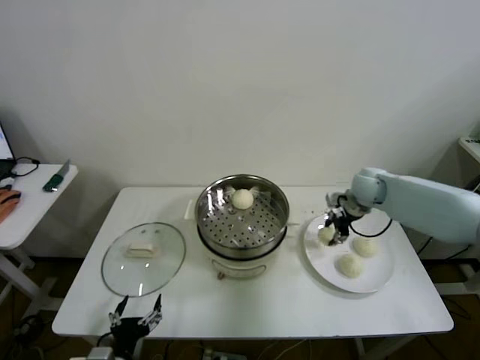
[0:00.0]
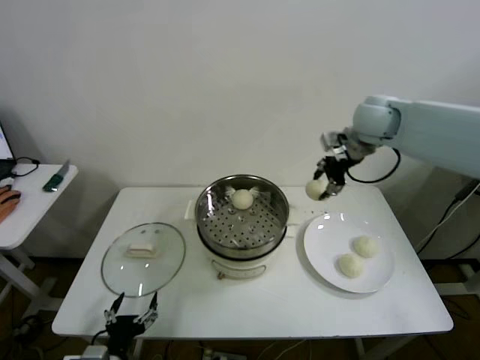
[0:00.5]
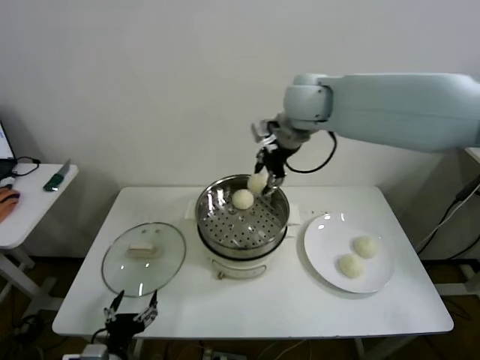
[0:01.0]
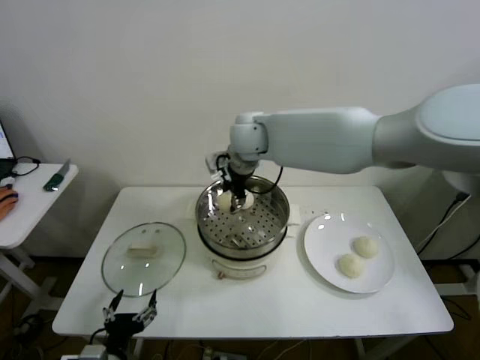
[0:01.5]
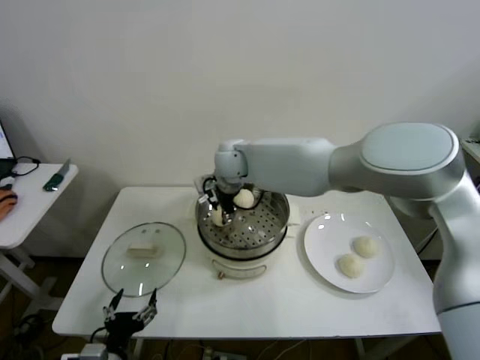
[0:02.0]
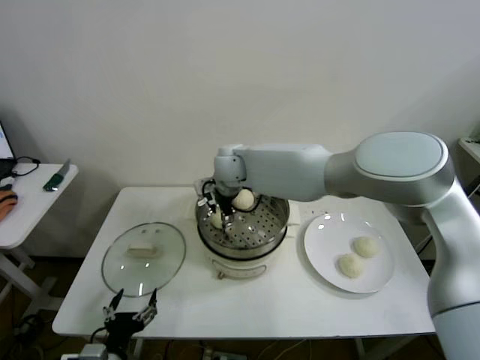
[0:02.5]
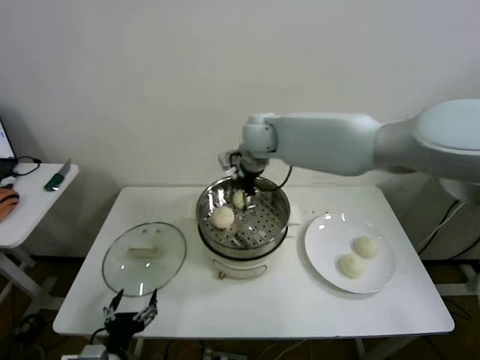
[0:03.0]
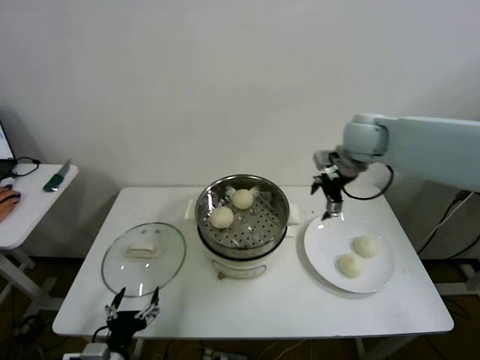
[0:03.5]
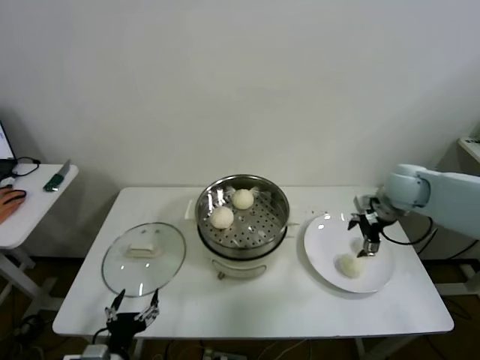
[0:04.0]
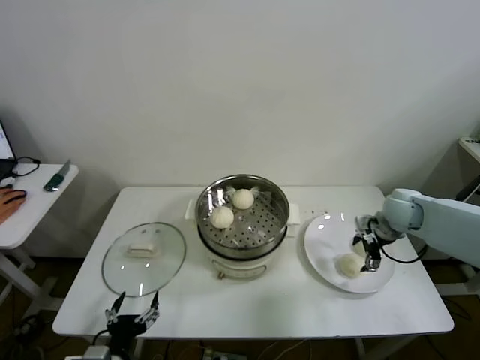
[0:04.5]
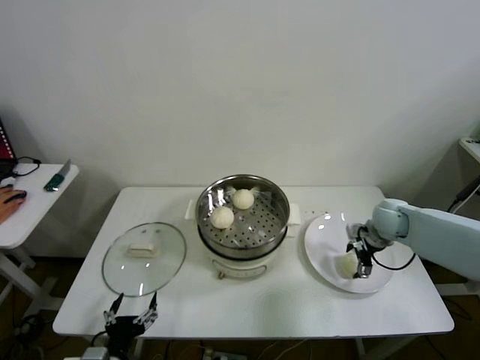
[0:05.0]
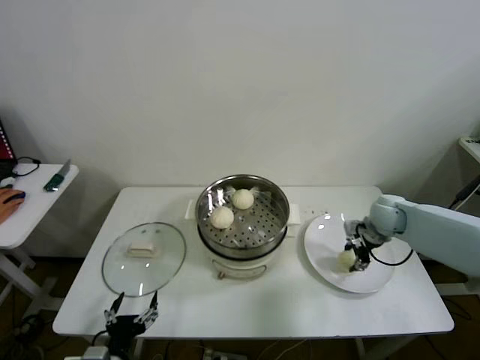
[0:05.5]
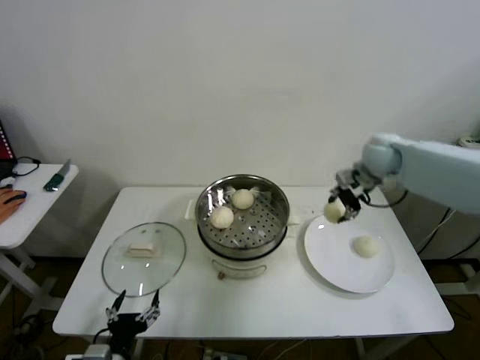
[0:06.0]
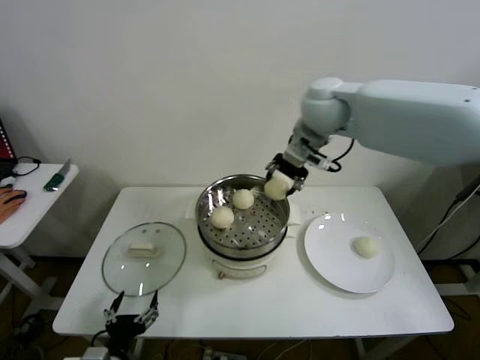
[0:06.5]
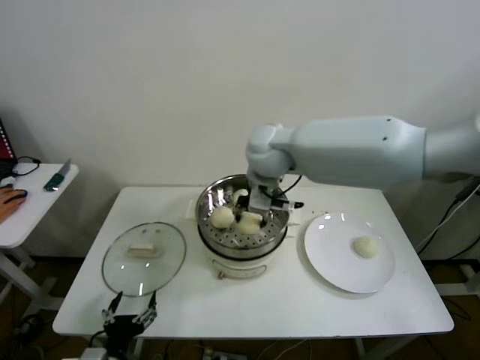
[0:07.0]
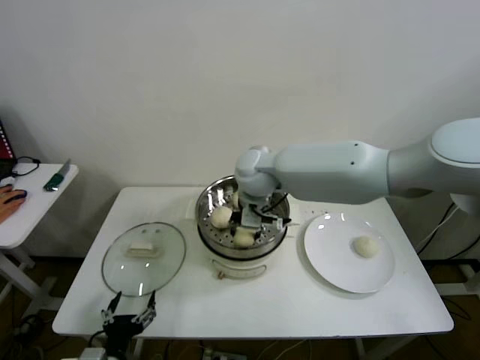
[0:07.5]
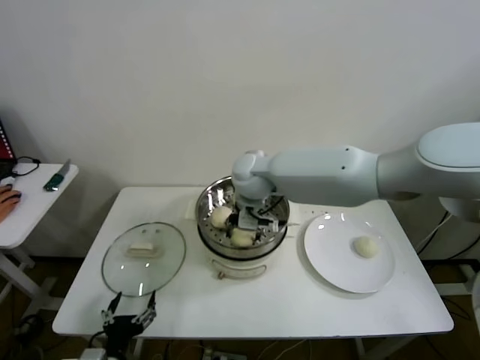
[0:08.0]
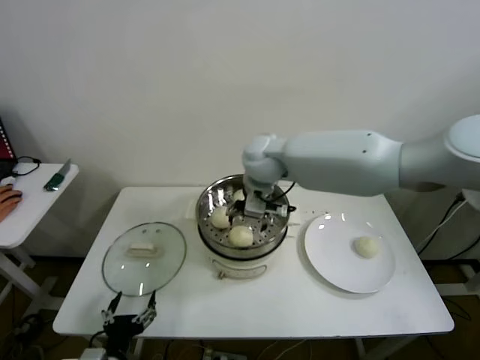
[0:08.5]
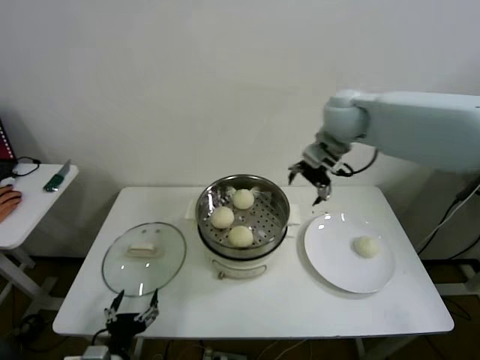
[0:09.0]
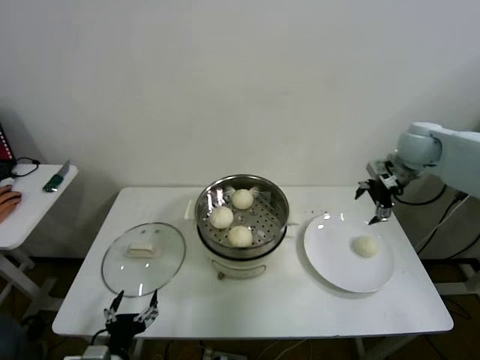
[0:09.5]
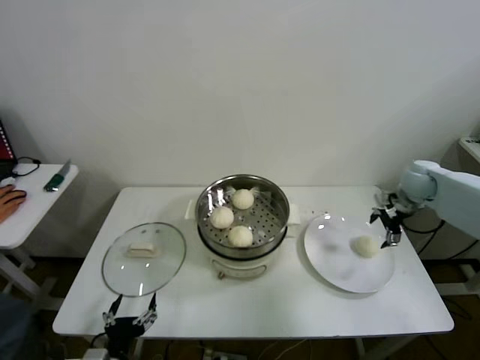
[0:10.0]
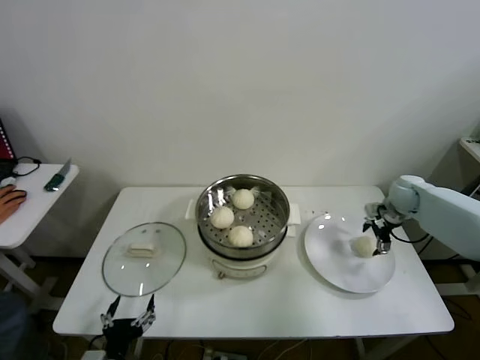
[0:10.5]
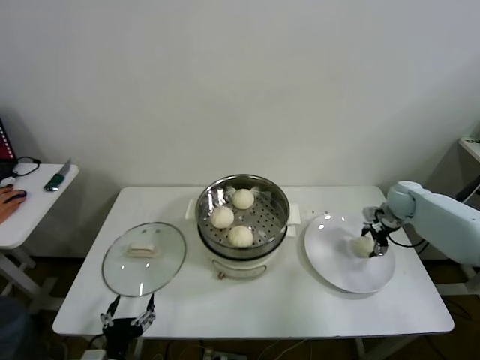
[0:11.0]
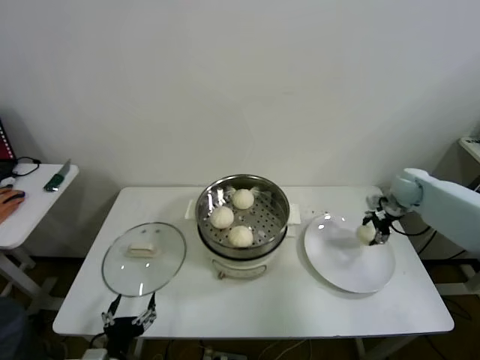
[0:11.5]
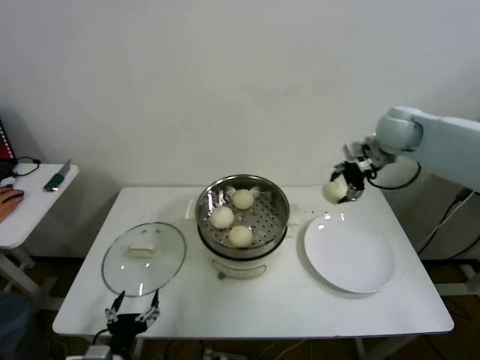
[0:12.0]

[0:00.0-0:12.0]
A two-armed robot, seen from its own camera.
Step, 0:00.0 to 0:02.0: Place the baozi on the steamer with right gripper.
Step, 0:03.0 to 0:05.0: Grasp the baozi in the plate with right gripper.
Step, 0:05.5 to 0:08.0: Place the baozi on the steamer with right gripper.
Step, 0:08.5 to 0:11.0: Grasp the baozi in the plate with right gripper.
0:00.0 to 0:02.0: The right gripper moves to the left, roughly 35 cm.
0:02.0 to 0:04.0: The right gripper heads to the right, covering approximately 40 cm, and opens up.
0:04.0 to 0:06.0: The right gripper heads forward, covering some 5 cm, moves some 10 cm downward and comes back, and closes its fingers.
0:06.0 to 0:08.0: The right gripper travels to the left by about 30 cm, and opens up.
0:08.0 to 0:10.0: The right gripper shifts roughly 40 cm to the right, and opens its fingers.
0:10.0 to 0:12.0: The right gripper shifts about 15 cm upward and to the left, and closes up.

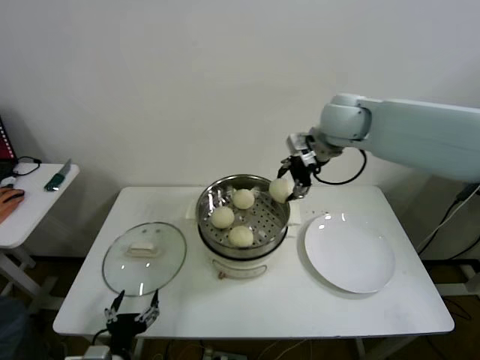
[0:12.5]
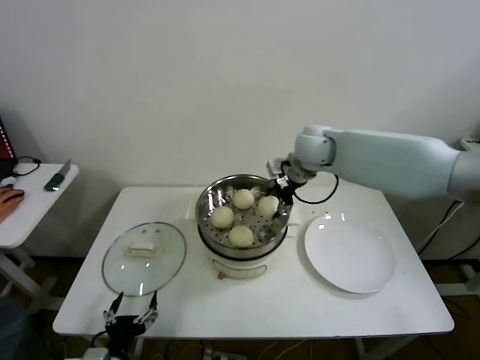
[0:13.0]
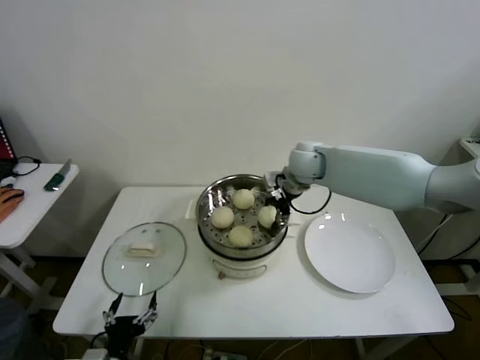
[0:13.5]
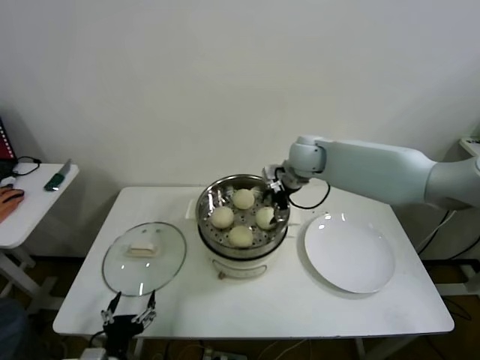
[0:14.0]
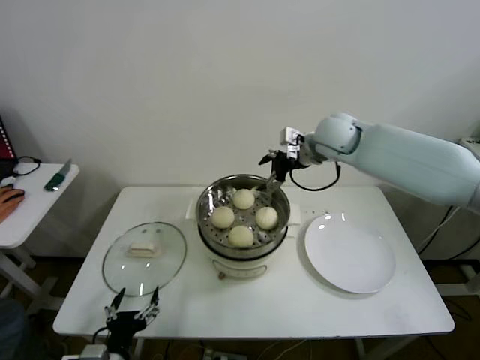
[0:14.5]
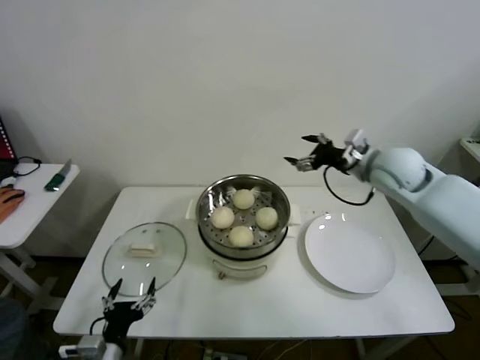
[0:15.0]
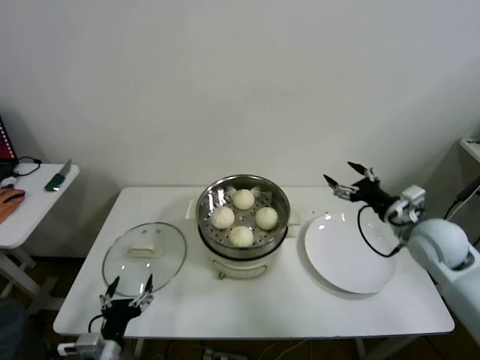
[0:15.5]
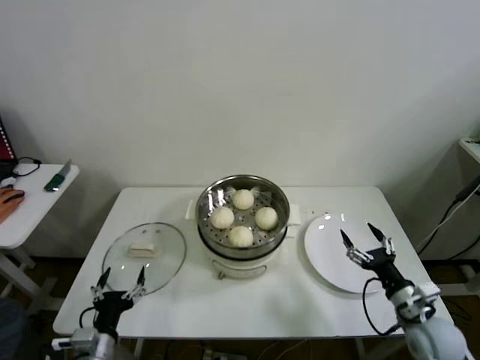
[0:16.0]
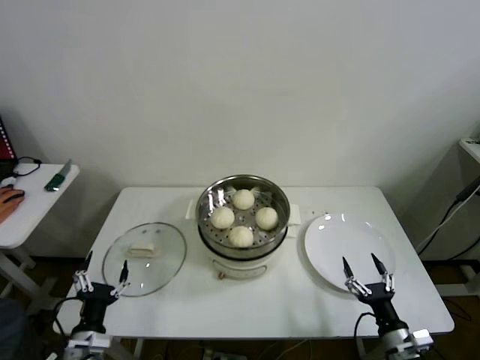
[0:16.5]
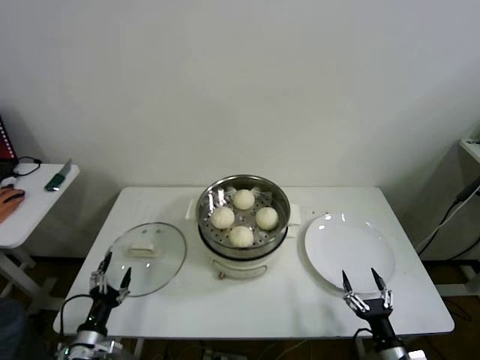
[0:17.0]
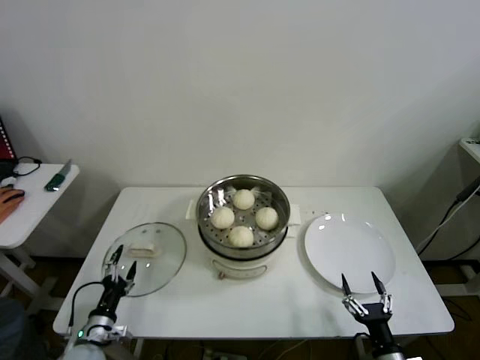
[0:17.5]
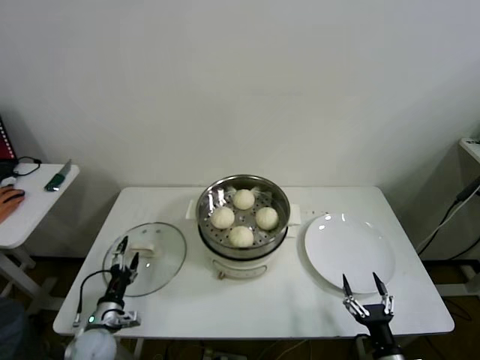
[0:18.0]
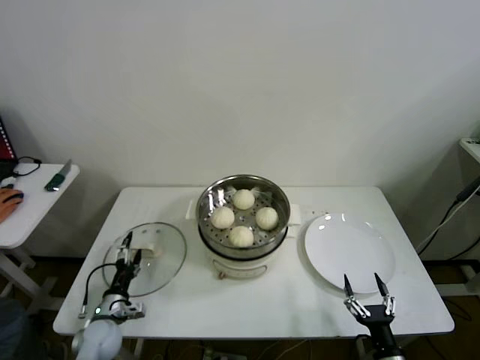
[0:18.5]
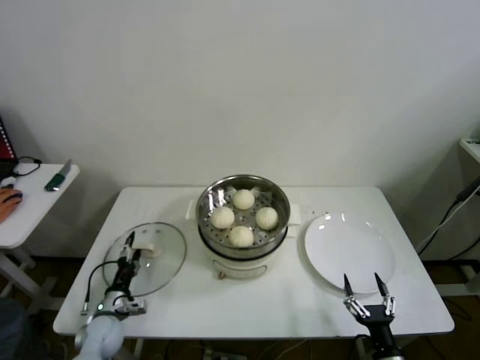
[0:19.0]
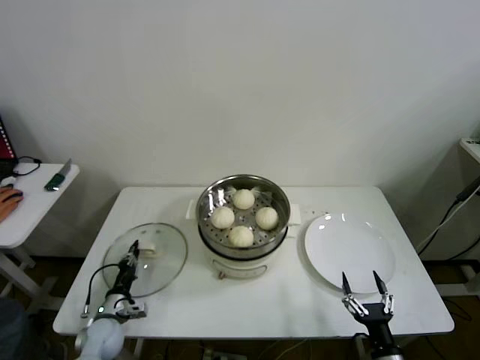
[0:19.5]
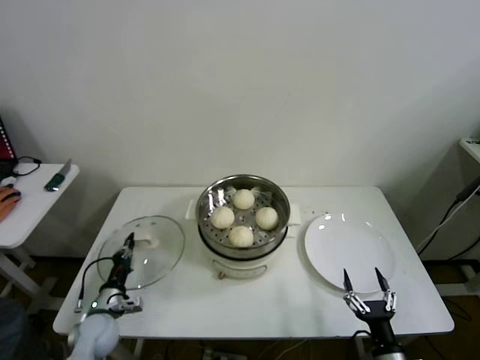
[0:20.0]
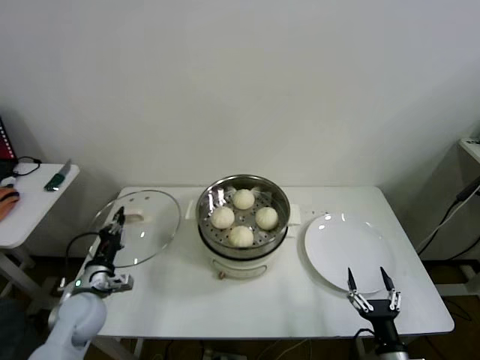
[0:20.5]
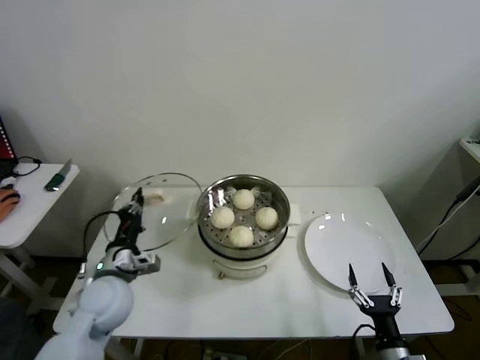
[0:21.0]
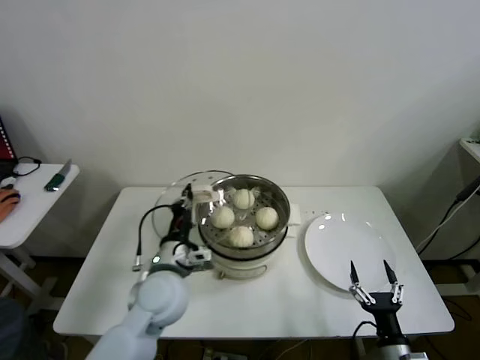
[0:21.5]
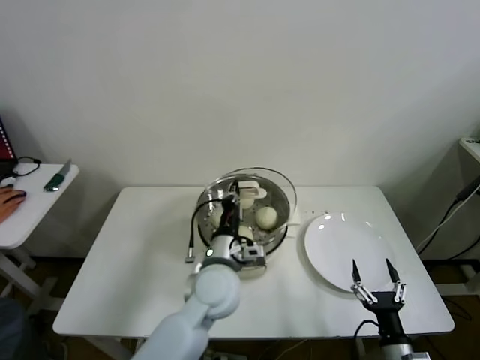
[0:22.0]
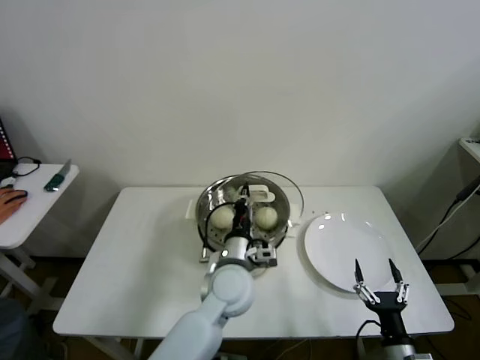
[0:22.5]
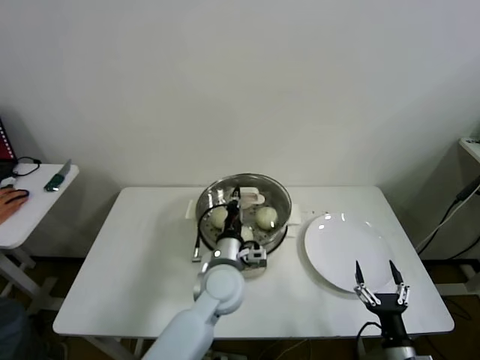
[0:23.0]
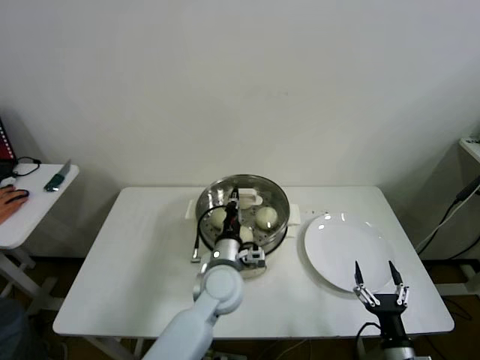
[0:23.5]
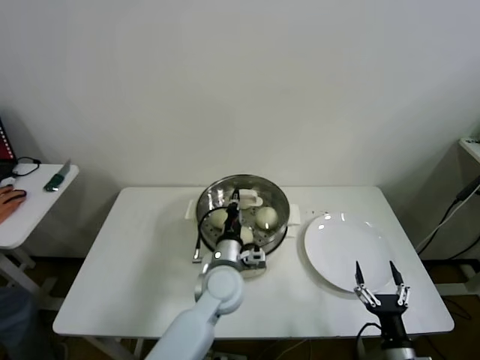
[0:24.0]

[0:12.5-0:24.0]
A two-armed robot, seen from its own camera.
Step, 0:14.0 to 0:19.5: Grasp the pot lid with left gripper.
0:12.5 to 0:14.5: The right gripper heads downward, covering roughly 5 cm, and opens up.
0:14.5 to 0:16.5: The left gripper goes some 5 cm to the left. Meanwhile the right gripper moves backward, downward and to the right, some 50 cm.
0:16.5 to 0:18.5: The left gripper travels forward and downward by roughly 15 cm. The right gripper changes place by approximately 5 cm.
0:18.5 to 0:20.0: The left gripper closes up.
0:20.0 to 0:22.0: The left gripper heads to the right and upward, covering approximately 35 cm.
0:22.0 to 0:24.0: The left gripper shifts approximately 5 cm downward.

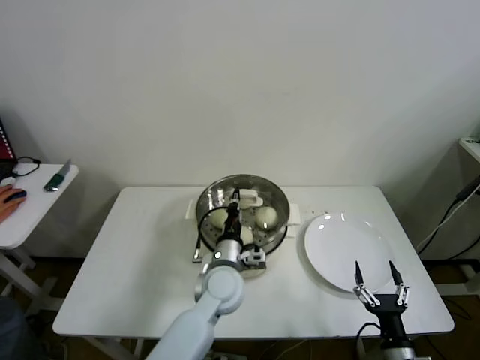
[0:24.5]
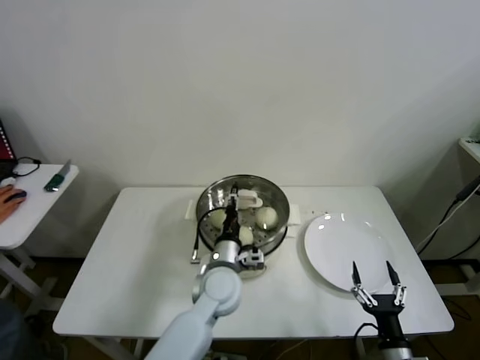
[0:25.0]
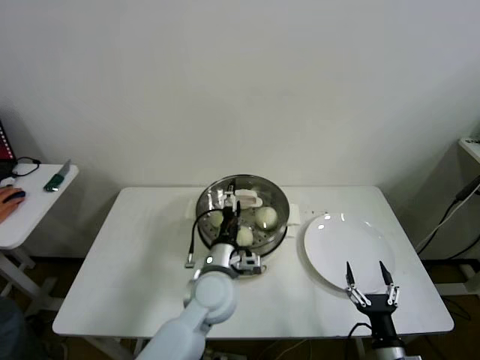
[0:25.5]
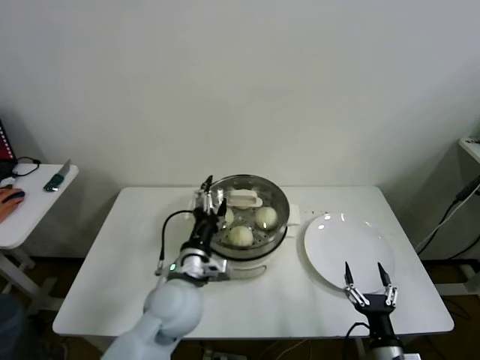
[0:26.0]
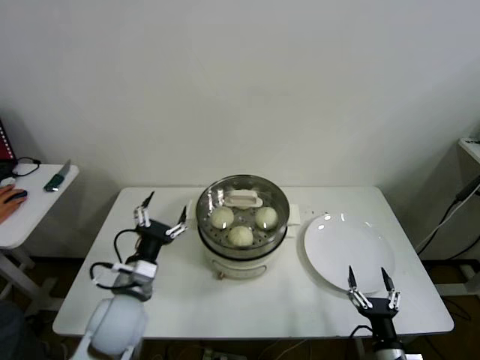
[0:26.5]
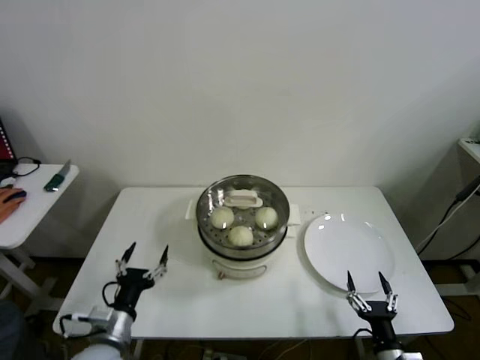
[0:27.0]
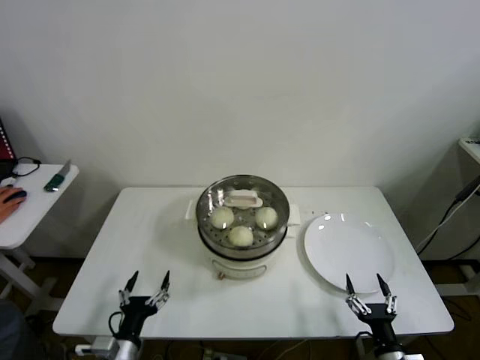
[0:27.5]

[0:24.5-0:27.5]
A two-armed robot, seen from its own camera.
0:24.5 to 0:26.0: The left gripper shifts approximately 10 cm to the left and backward, and opens up.
0:26.0 to 0:27.5: The left gripper shifts roughly 25 cm to the left, backward and downward.
